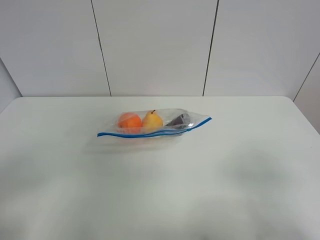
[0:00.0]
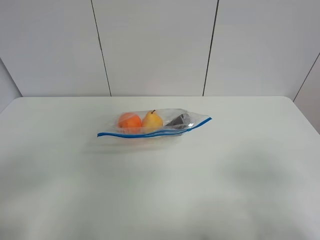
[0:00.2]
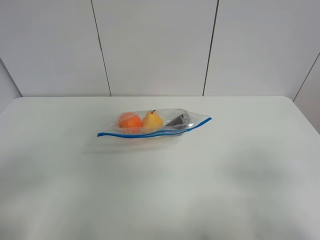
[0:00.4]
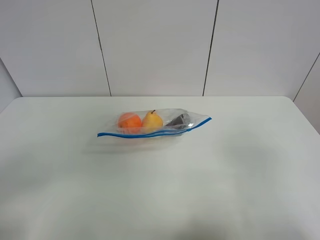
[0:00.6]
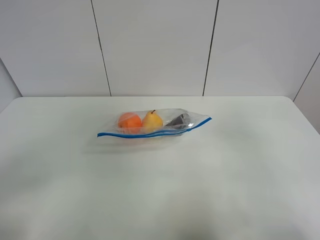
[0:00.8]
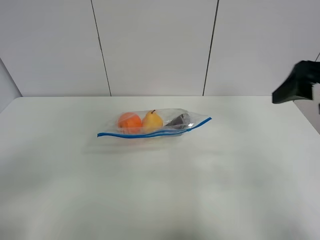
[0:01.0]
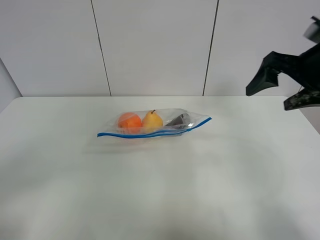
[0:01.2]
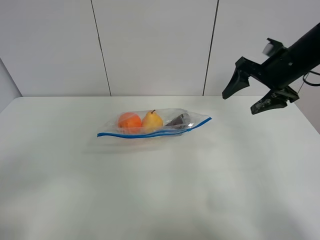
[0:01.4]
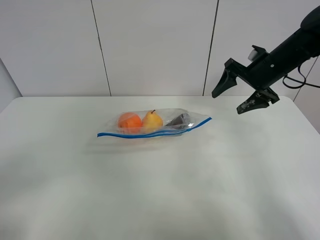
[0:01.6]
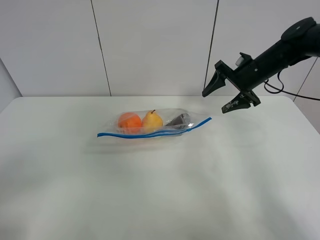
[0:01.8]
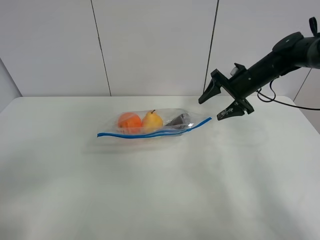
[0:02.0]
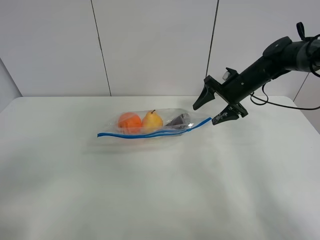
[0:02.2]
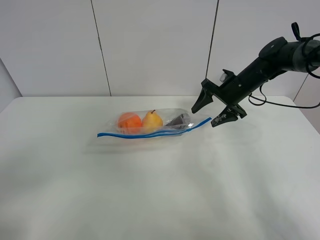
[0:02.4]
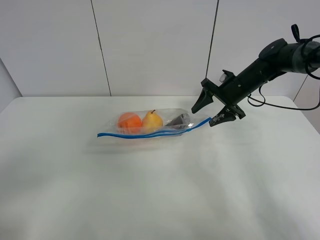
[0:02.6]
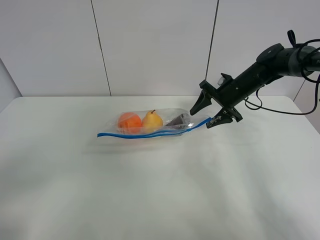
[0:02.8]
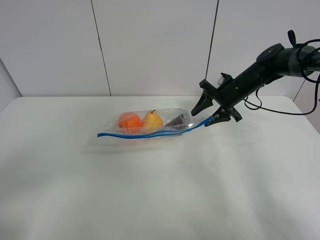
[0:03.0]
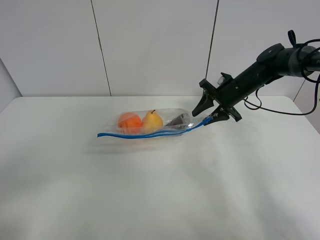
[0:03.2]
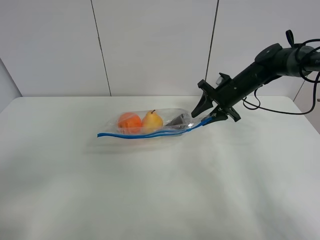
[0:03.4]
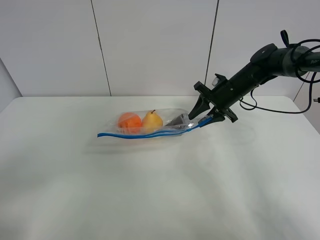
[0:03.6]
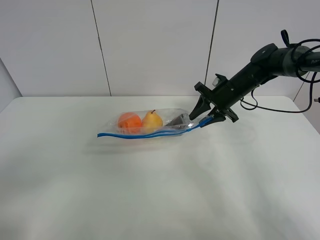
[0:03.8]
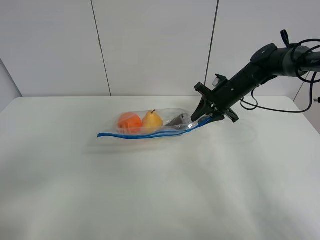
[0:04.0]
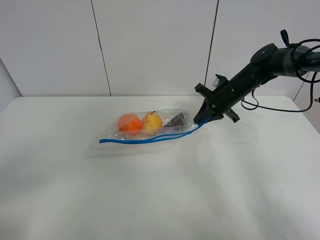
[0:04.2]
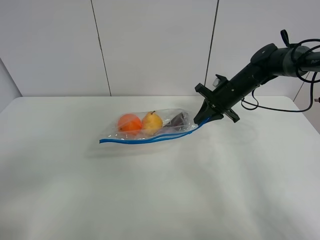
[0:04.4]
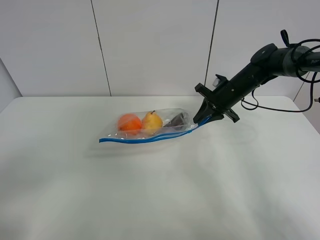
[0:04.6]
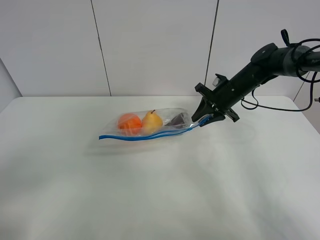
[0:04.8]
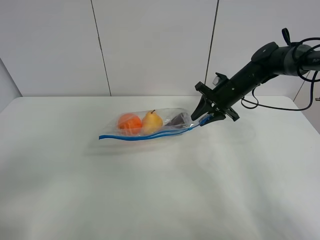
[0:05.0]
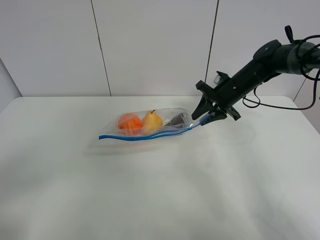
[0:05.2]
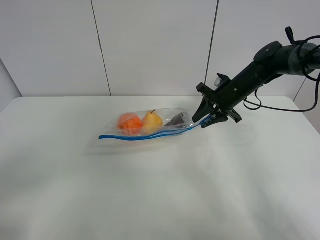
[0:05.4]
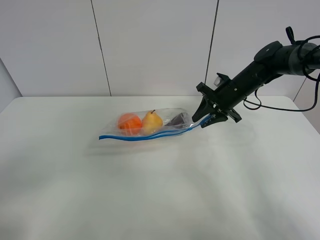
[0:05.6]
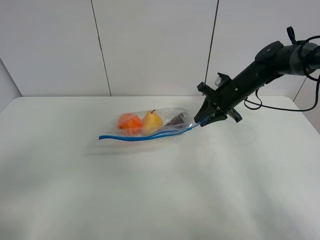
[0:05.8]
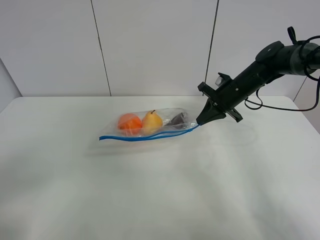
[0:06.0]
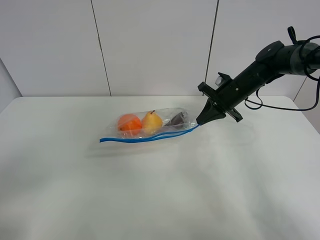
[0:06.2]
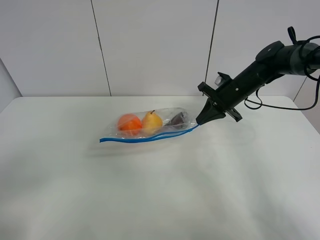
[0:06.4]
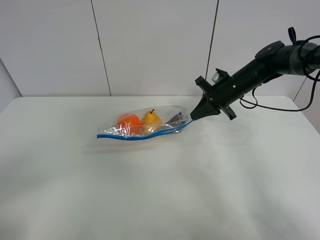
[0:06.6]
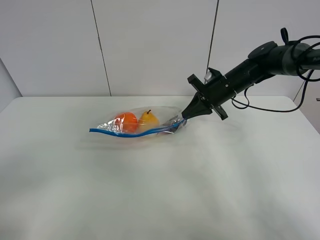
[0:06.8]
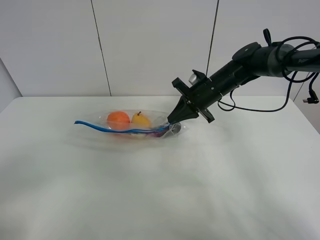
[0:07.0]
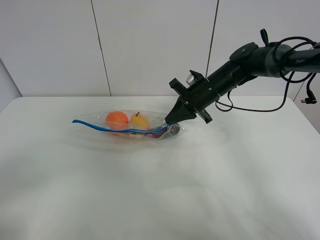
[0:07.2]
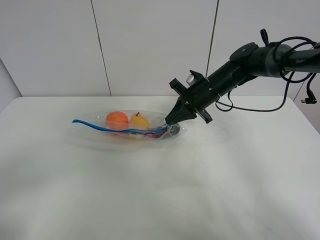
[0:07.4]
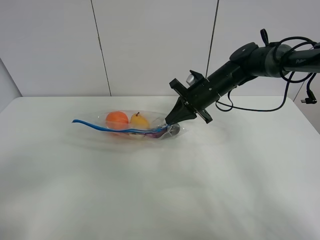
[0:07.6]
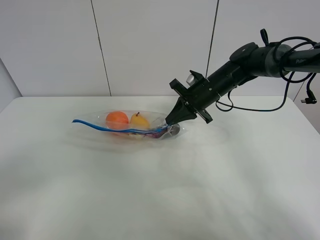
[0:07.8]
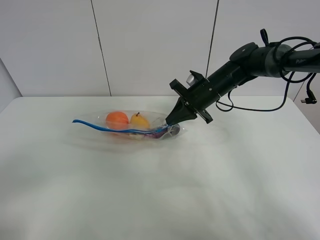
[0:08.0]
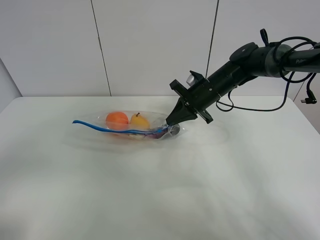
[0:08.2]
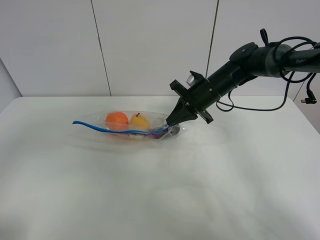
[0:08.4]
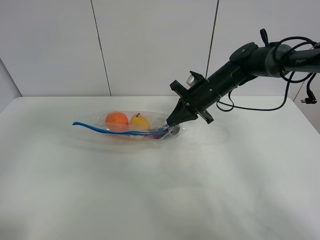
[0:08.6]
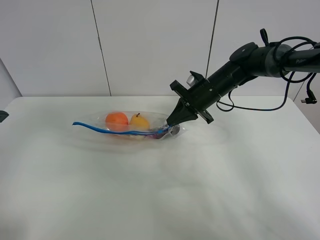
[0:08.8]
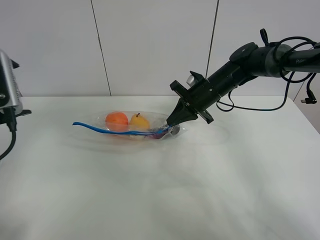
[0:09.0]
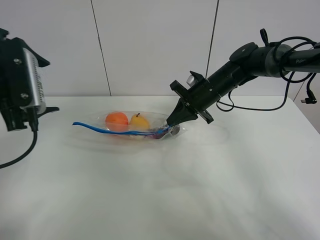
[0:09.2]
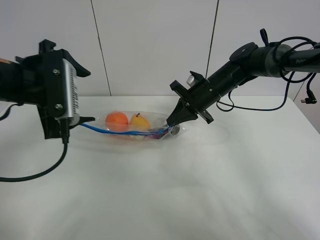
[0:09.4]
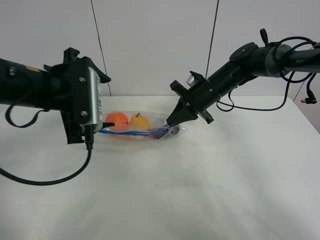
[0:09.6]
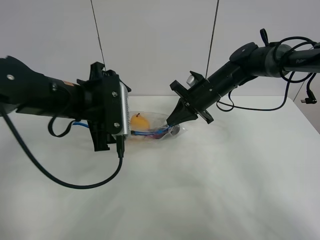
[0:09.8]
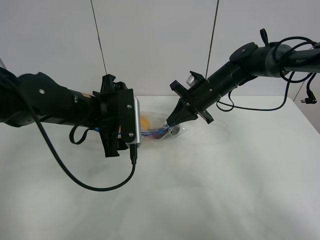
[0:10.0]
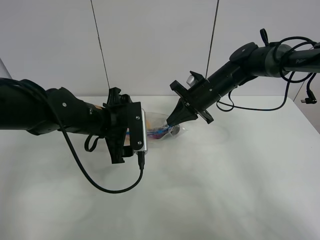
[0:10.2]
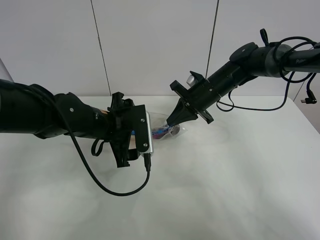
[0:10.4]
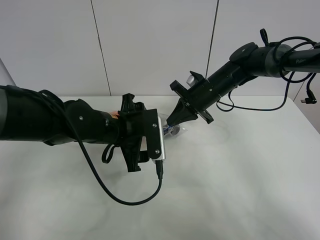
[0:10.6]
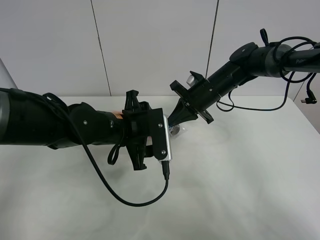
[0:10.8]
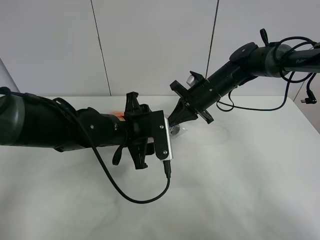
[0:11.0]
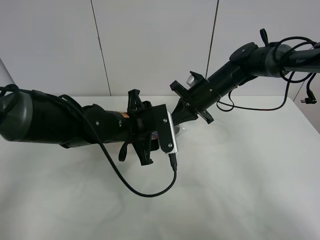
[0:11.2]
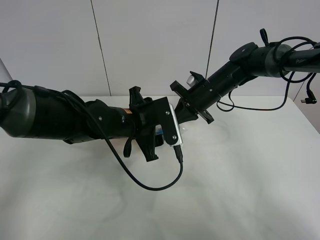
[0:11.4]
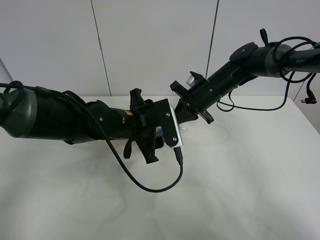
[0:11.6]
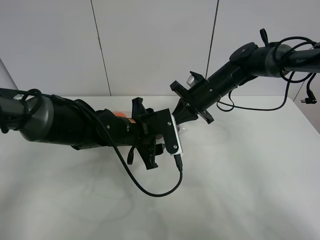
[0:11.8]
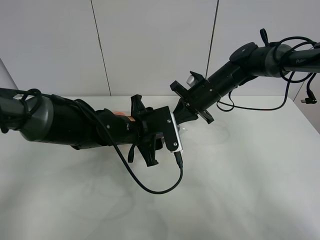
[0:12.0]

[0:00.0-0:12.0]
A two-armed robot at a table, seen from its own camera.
Step, 0:00.0 to 0:06.0: Grasp the fruit bag with right gripper.
Step, 0:06.2 to 0:07.6: Lift the fruit bag with your right gripper.
0:00.0 to 0:01.6: The right gripper heads forward, covering roughly 40 cm.
0:01.6 to 0:03.0: The right gripper travels downward by roughly 10 cm.
0:03.0 to 0:04.4: The right gripper closes.
0:04.4 to 0:06.0: The grippers stay close to where they were, moving slightly.
0:06.0 to 0:07.6: The right gripper is displaced to the left by roughly 5 cm.
0:07.6 to 0:09.0: The left gripper shifts about 25 cm forward.
0:09.0 to 0:10.4: The left gripper goes some 20 cm to the right and downward.
0:10.4 to 0:12.0: The left gripper shifts by approximately 5 cm, and closes up.

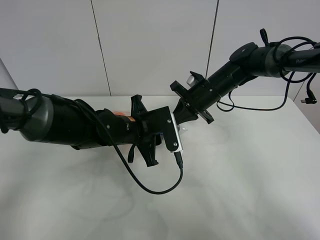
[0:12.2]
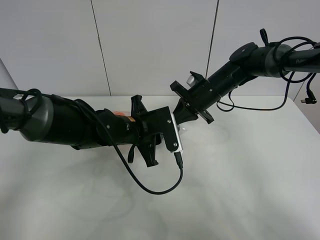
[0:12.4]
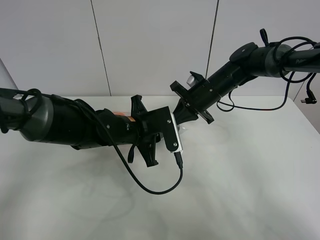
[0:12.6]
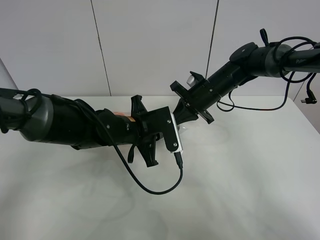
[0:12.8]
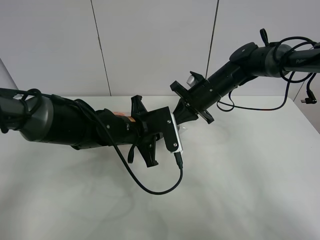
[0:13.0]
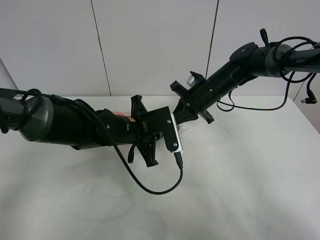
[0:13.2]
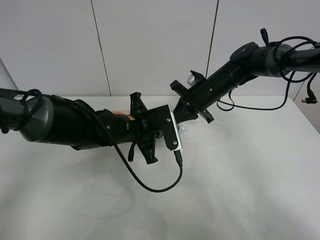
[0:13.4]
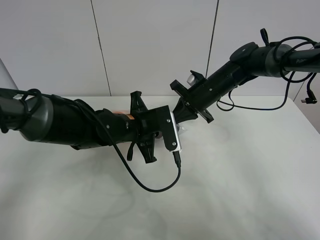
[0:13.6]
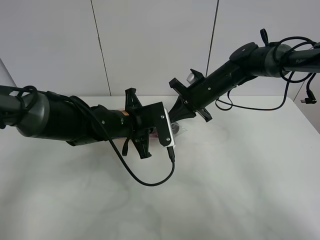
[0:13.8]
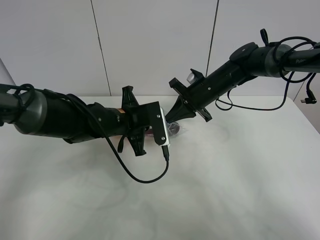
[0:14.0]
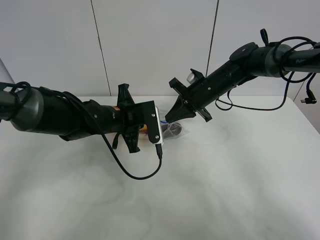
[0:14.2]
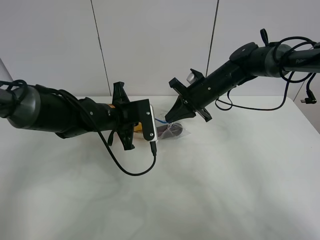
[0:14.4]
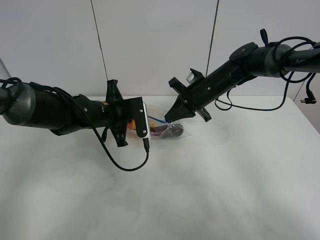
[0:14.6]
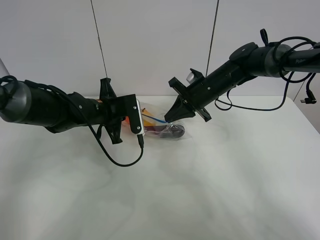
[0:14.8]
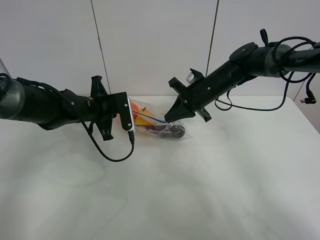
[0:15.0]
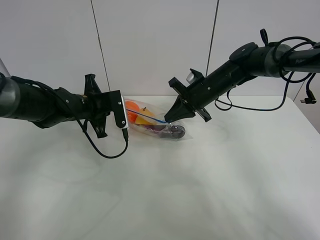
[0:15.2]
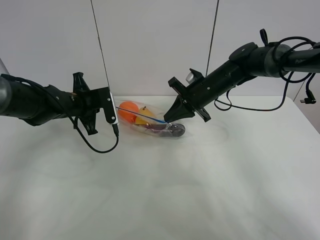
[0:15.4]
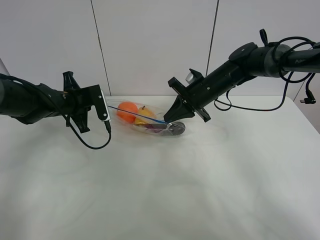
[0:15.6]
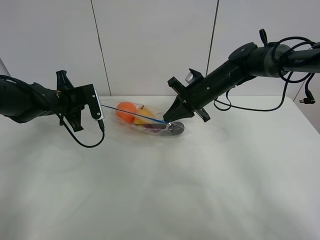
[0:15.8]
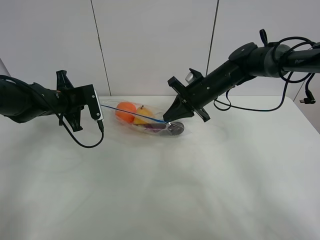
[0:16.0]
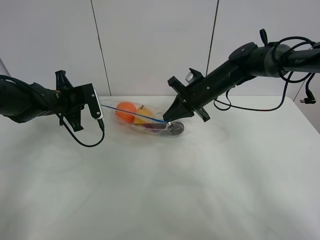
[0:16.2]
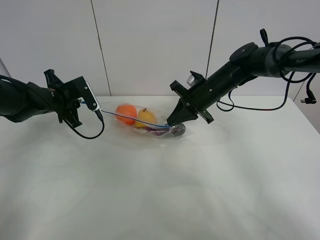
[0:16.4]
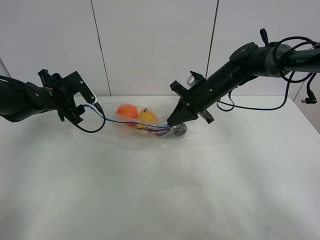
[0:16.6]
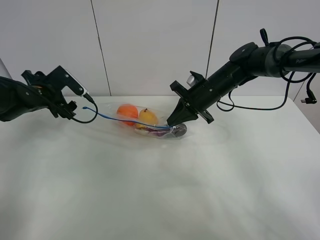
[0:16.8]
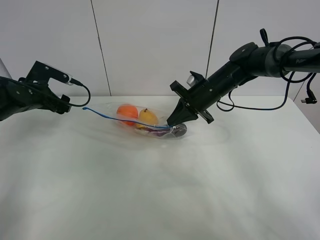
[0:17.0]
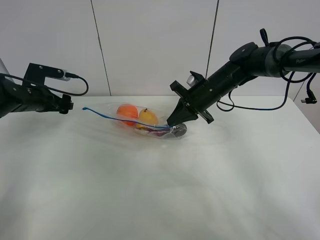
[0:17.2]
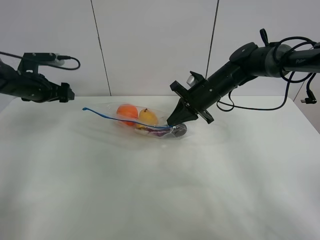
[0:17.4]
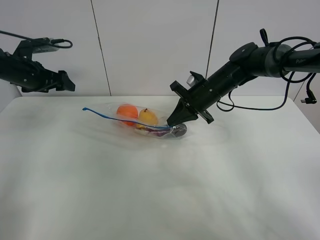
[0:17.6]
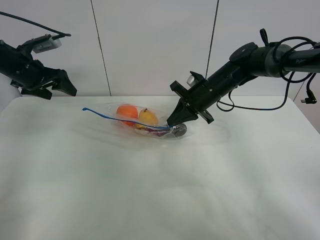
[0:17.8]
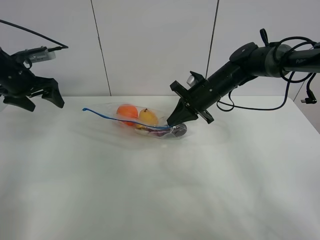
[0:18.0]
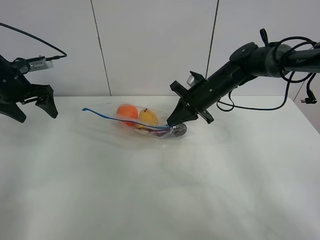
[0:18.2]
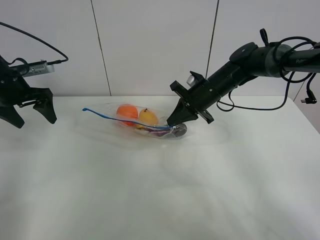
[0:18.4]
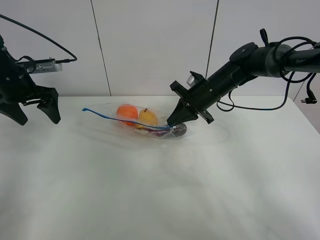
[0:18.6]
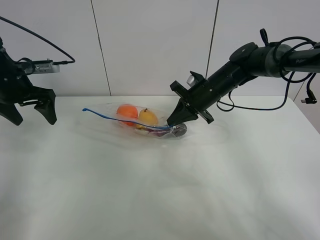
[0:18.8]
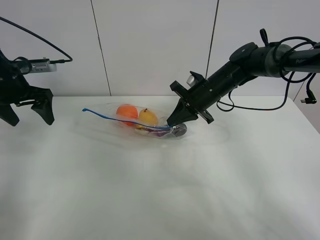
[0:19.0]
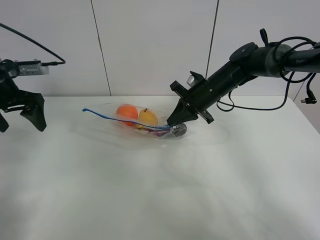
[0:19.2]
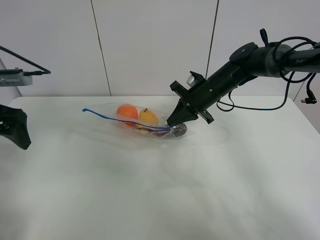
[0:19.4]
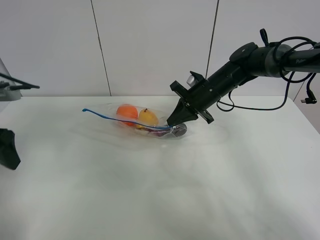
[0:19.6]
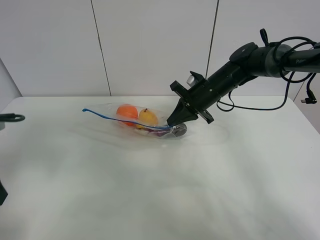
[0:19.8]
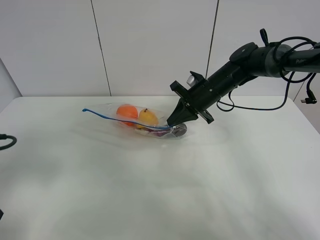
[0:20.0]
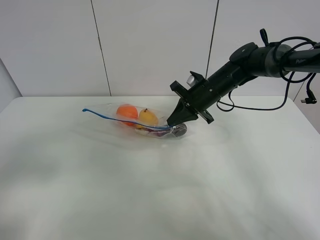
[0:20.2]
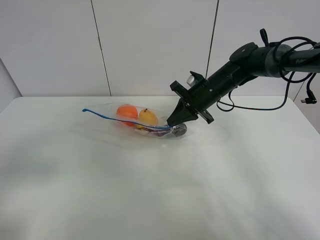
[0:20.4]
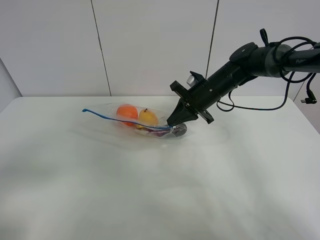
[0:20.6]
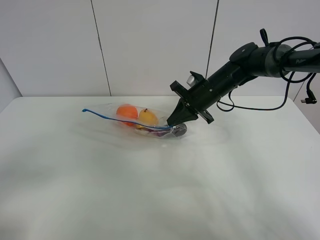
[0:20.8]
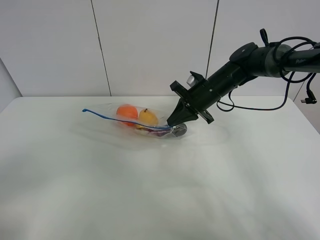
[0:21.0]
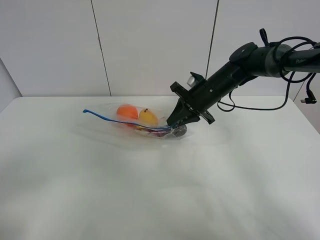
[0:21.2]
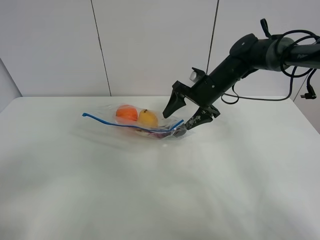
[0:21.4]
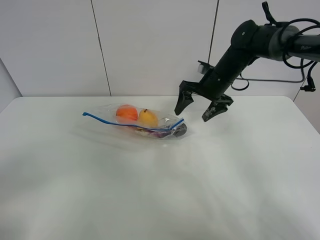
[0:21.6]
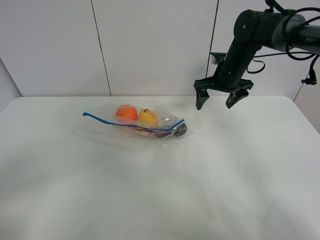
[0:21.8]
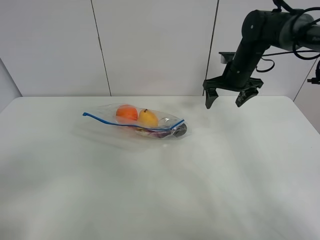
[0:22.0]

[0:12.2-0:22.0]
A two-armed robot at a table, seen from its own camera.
Step, 0:12.2 to 0:16.4: Pull the fruit bag with left gripper.
0:12.2 to 0:13.6: The two grippers keep their place.
0:13.6 to 0:15.0: The left gripper travels to the left and forward by roughly 10 cm.
0:15.0 to 0:16.4: The left gripper travels to the left by some 10 cm, and opens.
0:16.4 to 0:17.8: The left gripper is displaced upward and to the left by approximately 10 cm, and opens.
0:17.8 to 0:19.2: The left gripper shifts approximately 10 cm backward.
0:19.2 to 0:20.6: The left gripper is displaced backward by about 30 cm.
0:20.6 to 0:22.0: The right gripper goes about 10 cm to the right, and opens up.
